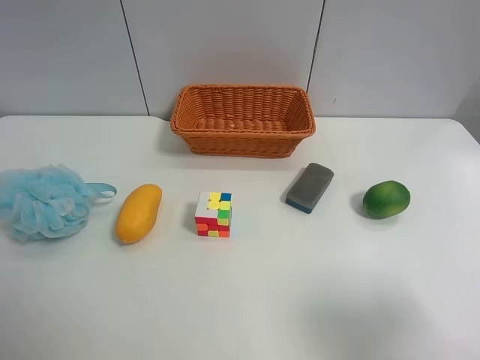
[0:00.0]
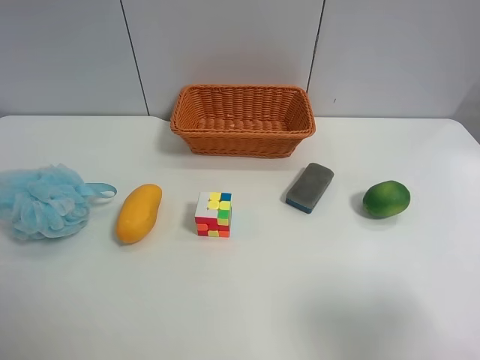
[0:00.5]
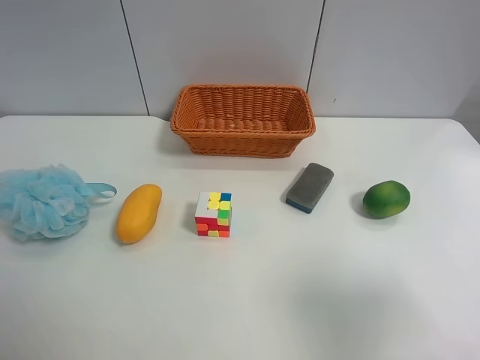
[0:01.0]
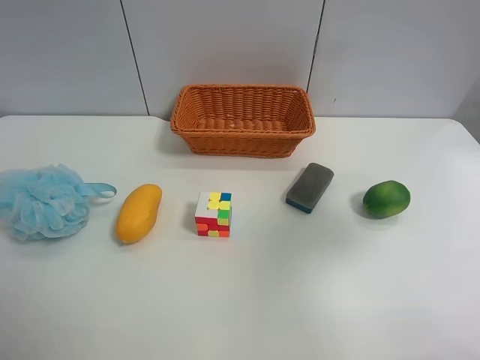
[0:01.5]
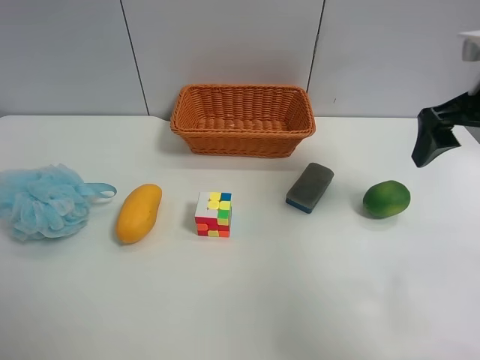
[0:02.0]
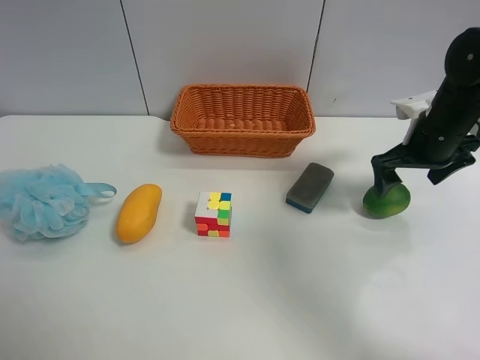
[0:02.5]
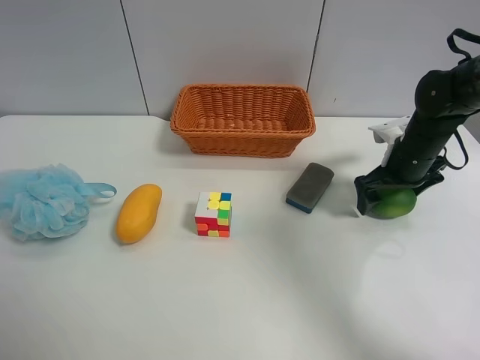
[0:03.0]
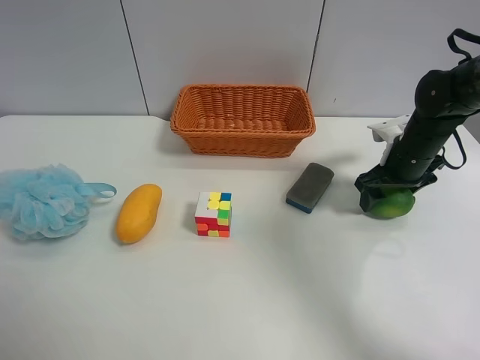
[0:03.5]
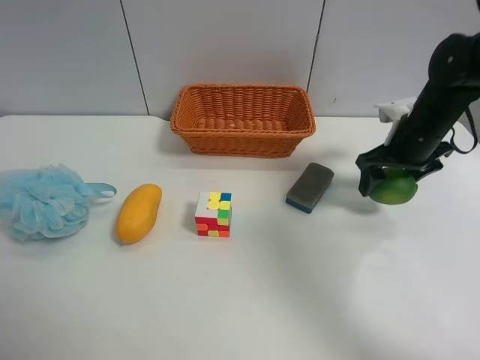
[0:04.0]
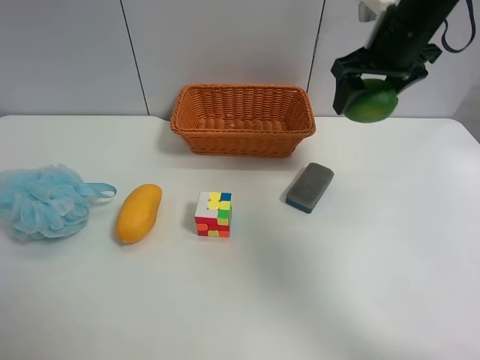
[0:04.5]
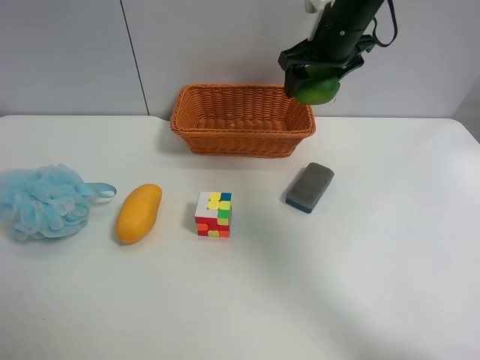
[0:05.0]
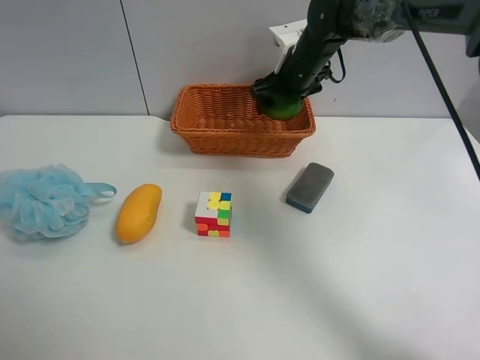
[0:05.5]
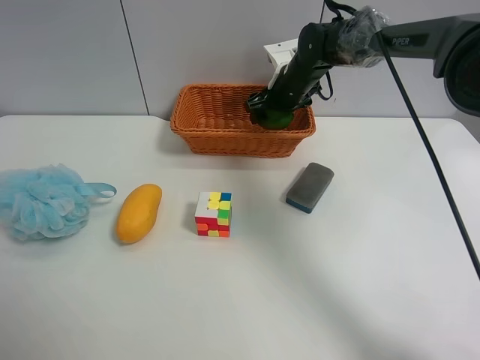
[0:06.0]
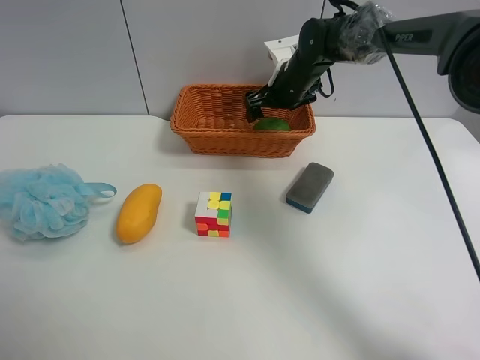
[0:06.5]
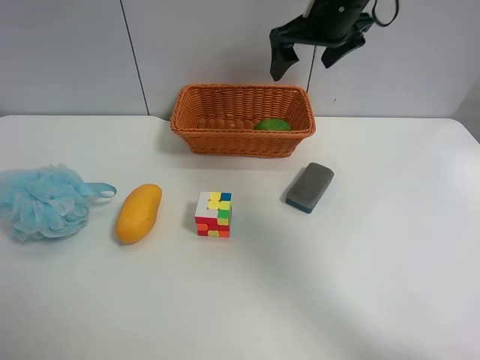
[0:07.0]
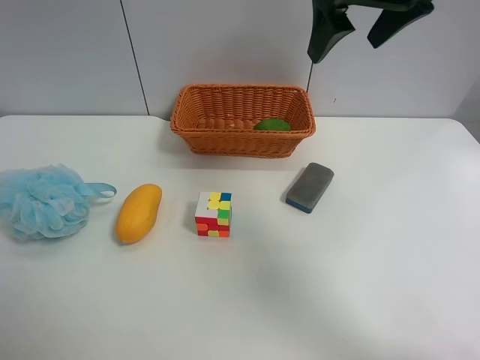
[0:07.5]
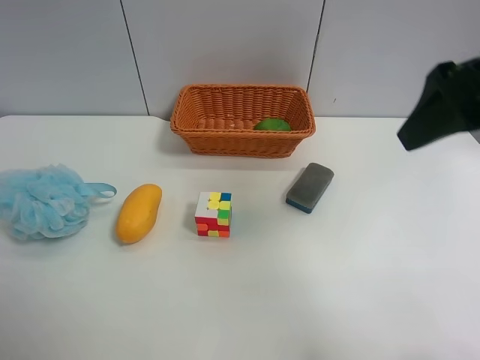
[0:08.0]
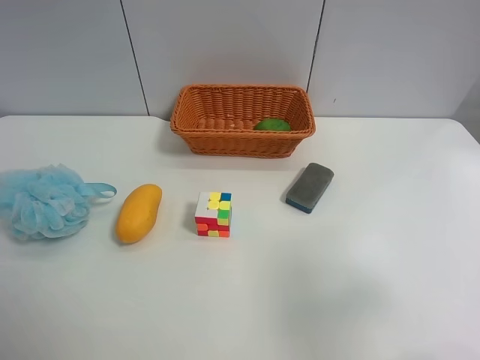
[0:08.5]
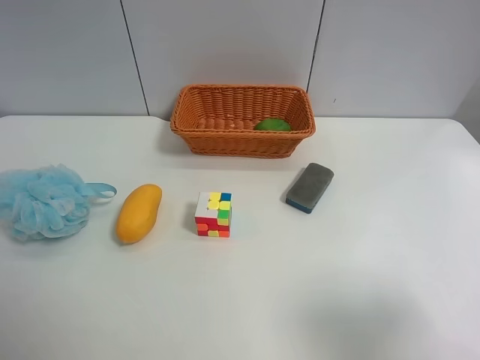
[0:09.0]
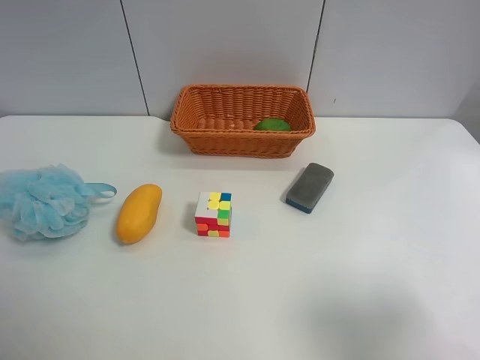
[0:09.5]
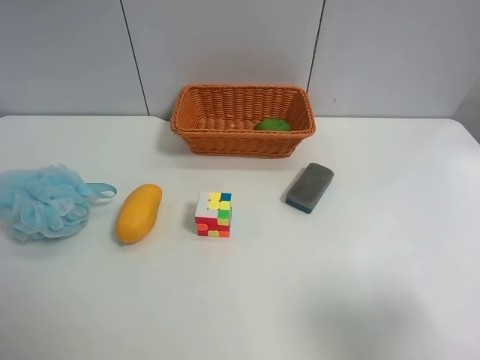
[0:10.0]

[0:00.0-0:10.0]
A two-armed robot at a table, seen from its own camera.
Task of the whole recording: Randomly grab green lemon or mangoes from the table and put them in a basket.
Step, 0:00.0 to 0:03.5: Grasp the Lemon with the right gripper.
Step, 0:04.0 to 0:06.5: Place the Lemon into the basket with the right gripper.
0:00.0 to 0:02.0: The right gripper travels forward by about 25 cm.
0:02.0 to 0:04.0: The right gripper heads downward and forward, covering about 15 cm, and closes its fingers.
0:04.0 to 0:06.0: The right gripper shifts approximately 20 cm to the left and forward.
0:06.0 to 0:08.0: The right gripper shifts roughly 35 cm backward and upward, and opens its fingers.
0:08.0 to 0:10.0: The right gripper is displaced backward and downward by approximately 20 cm.

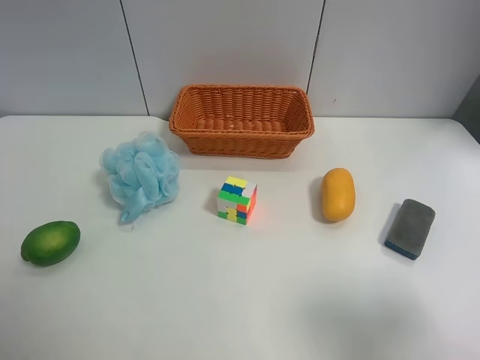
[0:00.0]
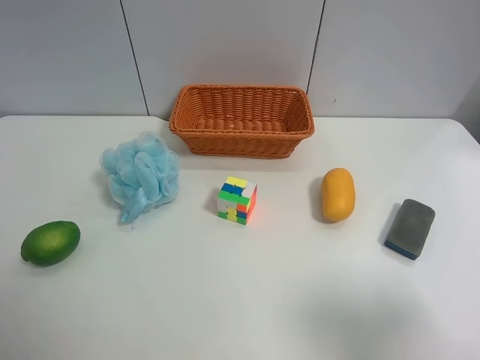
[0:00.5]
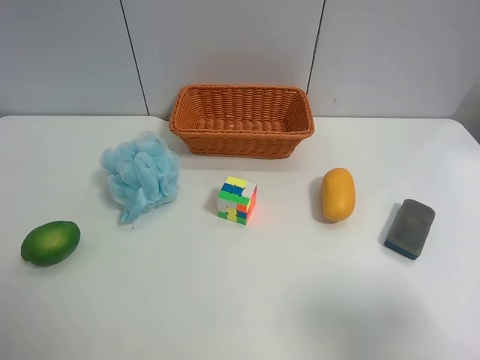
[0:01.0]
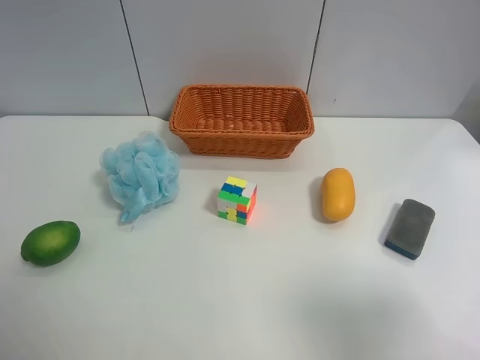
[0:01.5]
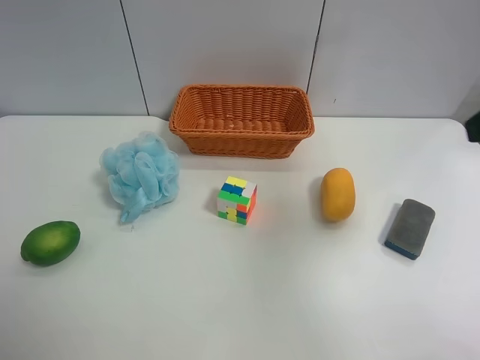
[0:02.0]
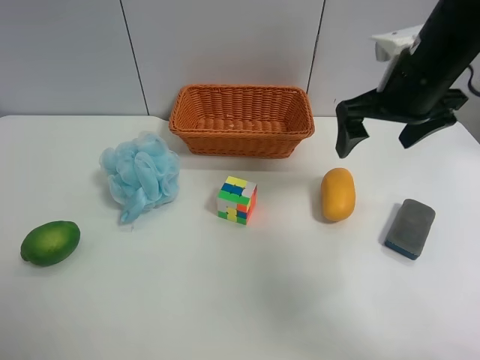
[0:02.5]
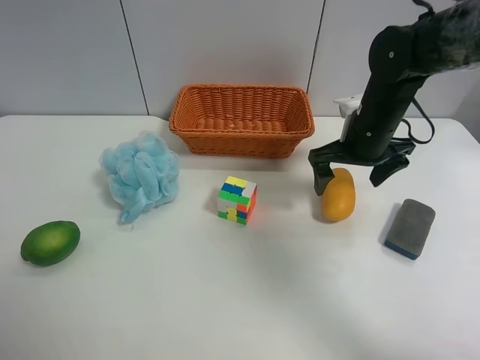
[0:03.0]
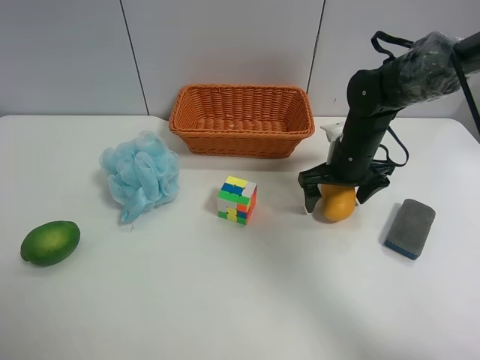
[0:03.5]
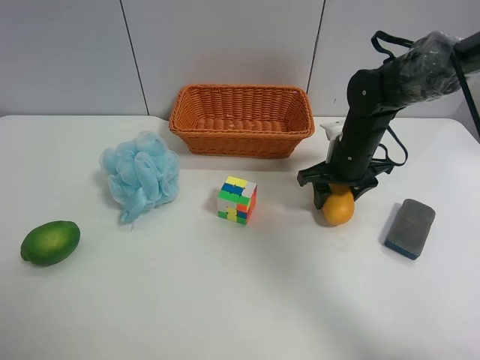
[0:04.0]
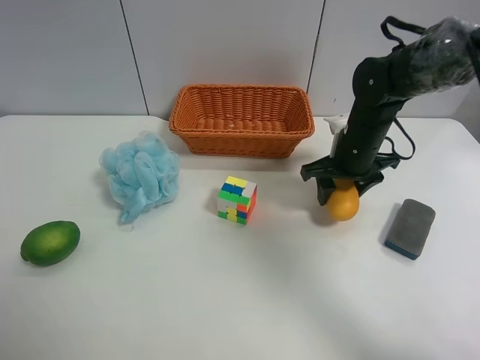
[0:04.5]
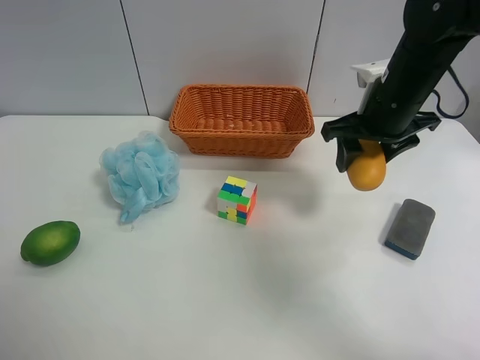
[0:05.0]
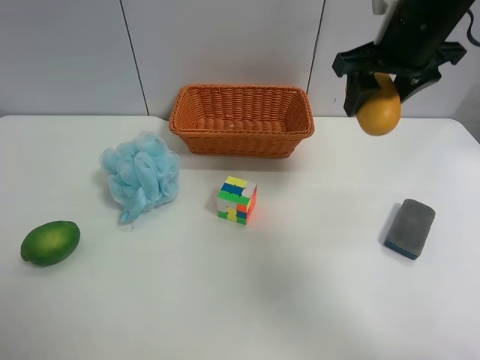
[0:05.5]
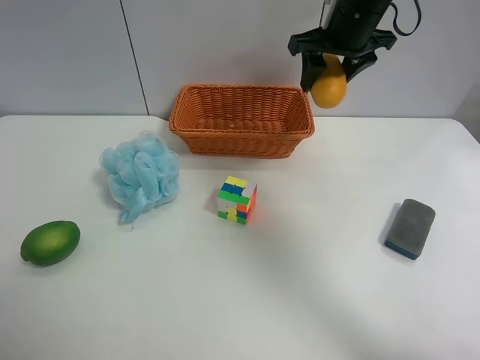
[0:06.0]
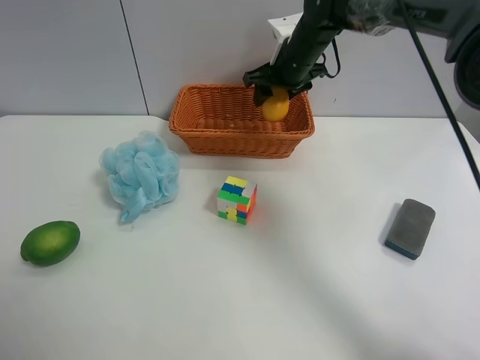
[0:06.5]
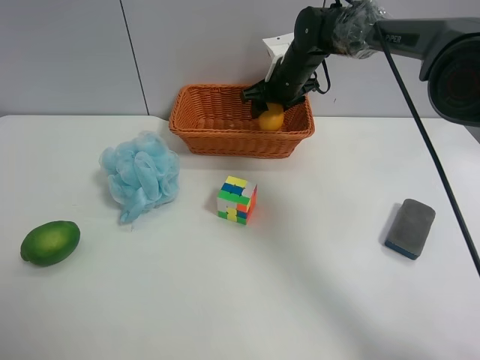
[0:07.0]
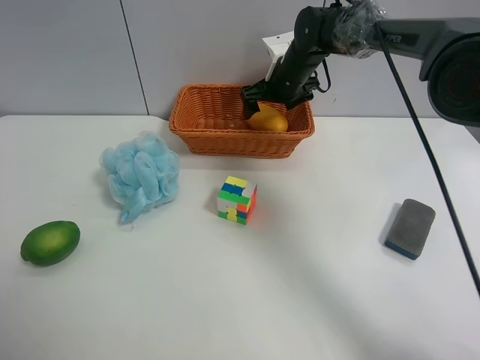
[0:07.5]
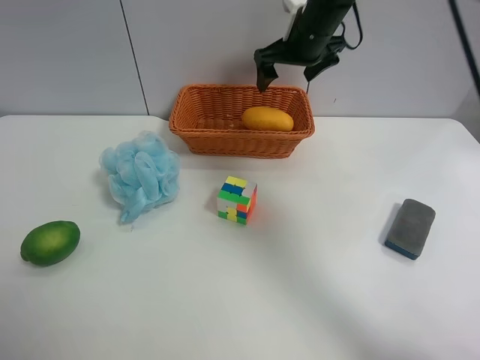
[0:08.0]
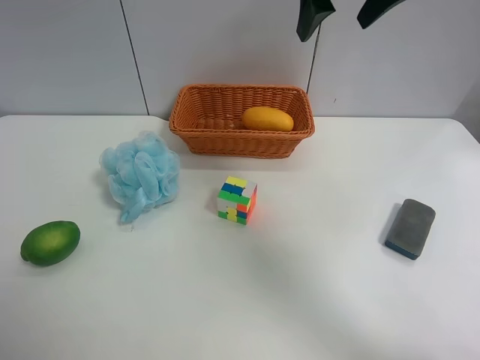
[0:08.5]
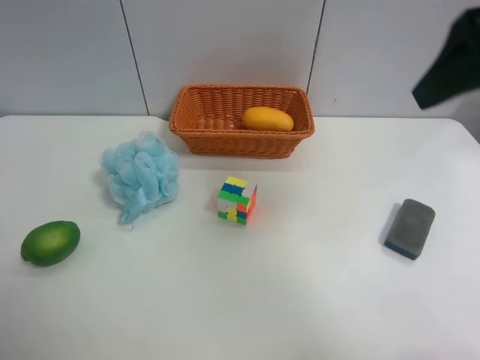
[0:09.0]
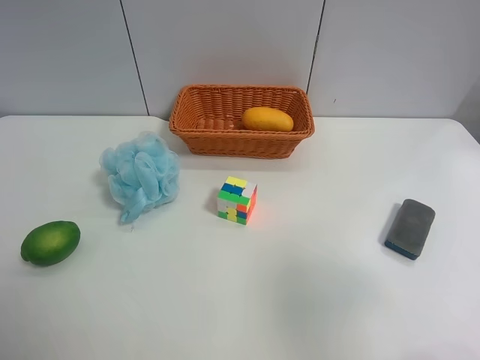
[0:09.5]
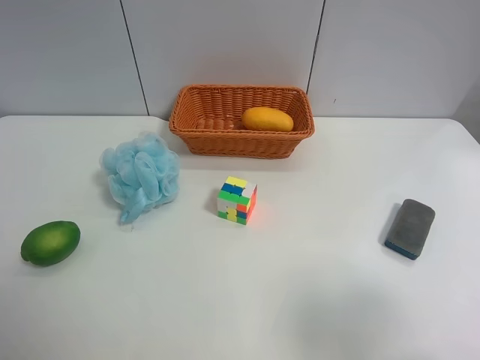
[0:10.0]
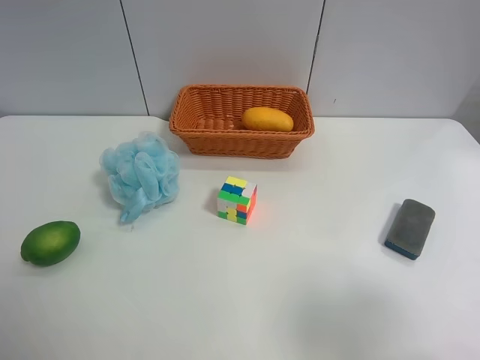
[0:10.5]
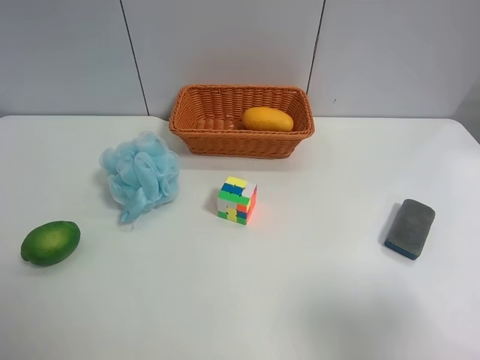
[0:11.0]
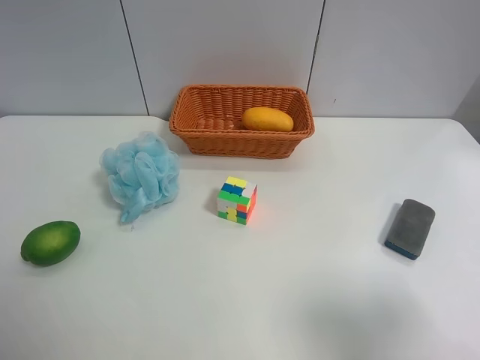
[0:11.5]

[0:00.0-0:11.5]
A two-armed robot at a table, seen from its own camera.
Task of the whole recording: Randomly grab green lemon or mangoes from the table and put them in a basket.
Step, 0:00.0 to 0:04.0: Grasp the mango with the right gripper.
Step, 0:04.5 to 0:08.0: Place the mango into the basket with the right gripper.
0:00.0 to 0:02.0: The right gripper heads forward and upward, covering approximately 20 cm.
0:02.0 to 0:04.0: The right gripper shifts about 30 cm downward and forward, and closes up.
0:04.0 to 0:06.0: The right gripper is displaced upward by approximately 20 cm.
0:06.0 to 0:07.5: The right gripper shifts about 15 cm downward, forward and to the left, and opens its fingers.
0:07.5 to 0:09.5: The right gripper shifts about 50 cm backward.
0:09.5 to 0:11.5: The right gripper moves about 5 cm.
